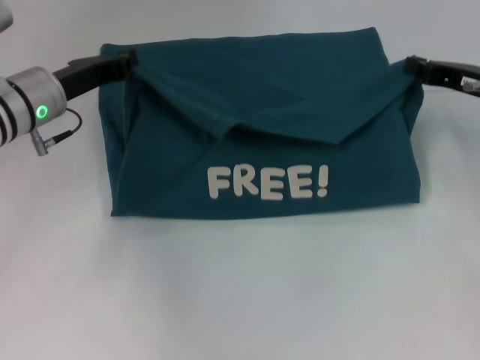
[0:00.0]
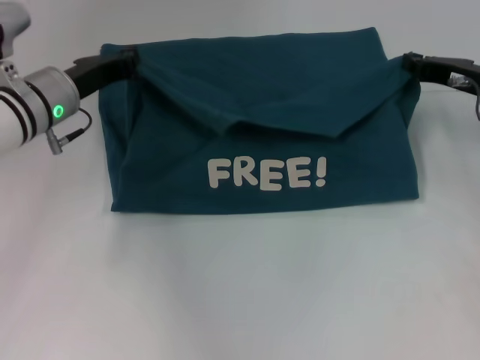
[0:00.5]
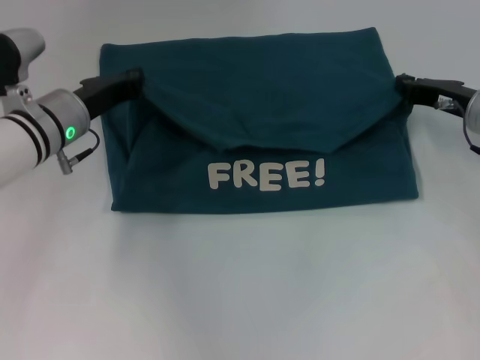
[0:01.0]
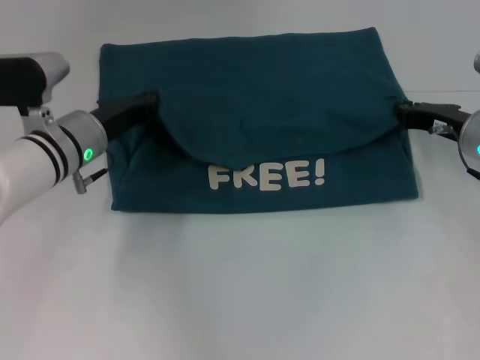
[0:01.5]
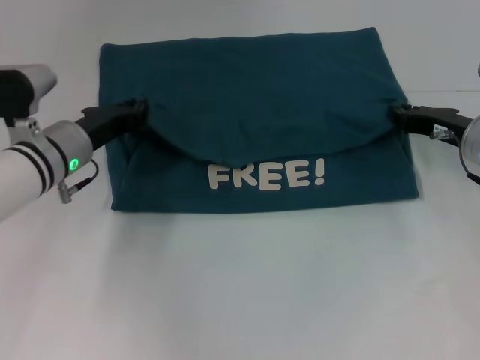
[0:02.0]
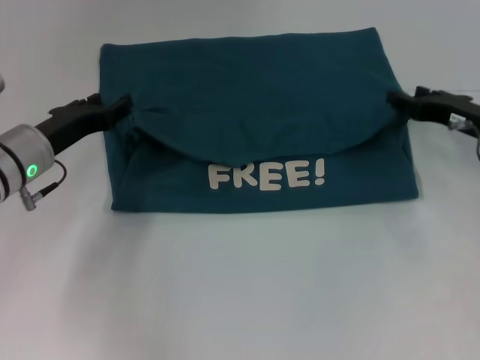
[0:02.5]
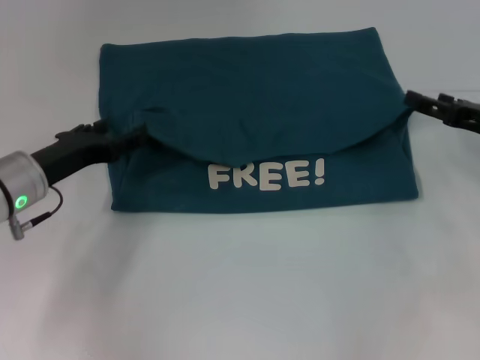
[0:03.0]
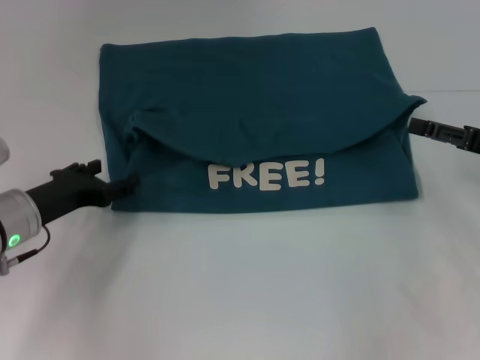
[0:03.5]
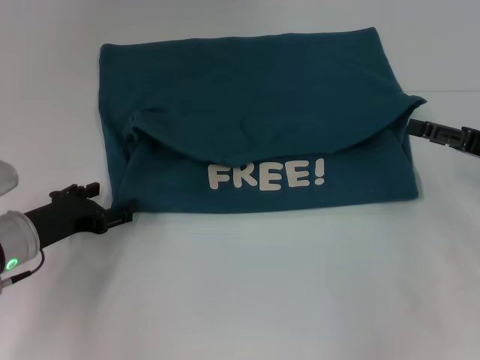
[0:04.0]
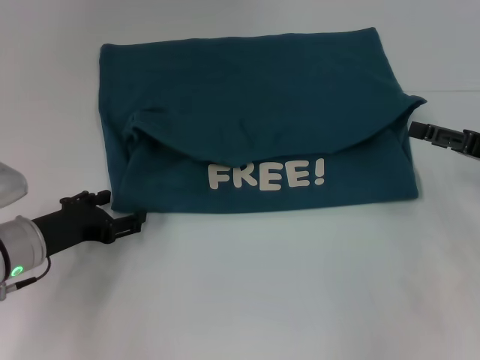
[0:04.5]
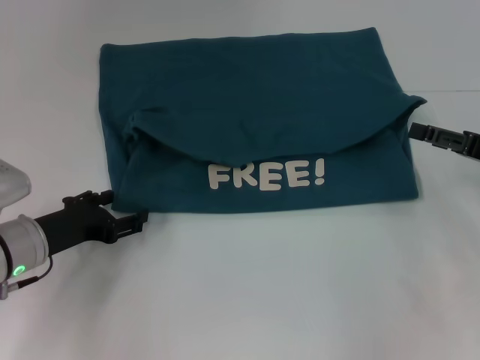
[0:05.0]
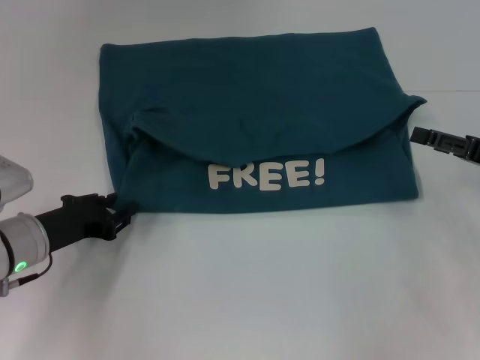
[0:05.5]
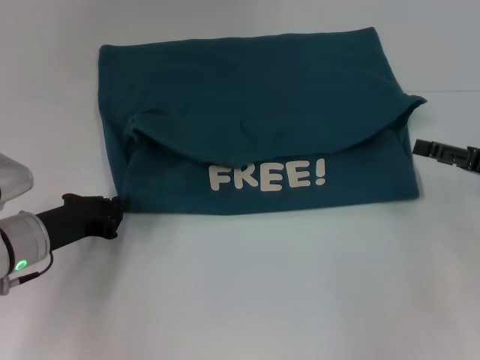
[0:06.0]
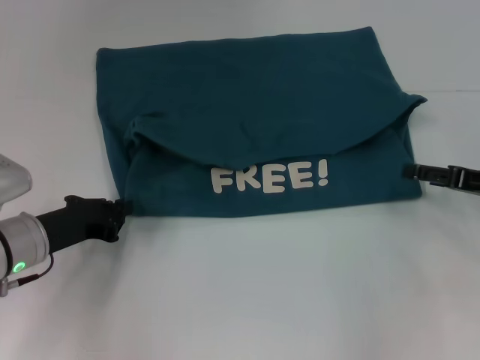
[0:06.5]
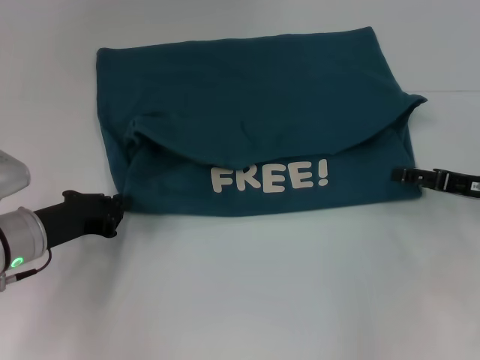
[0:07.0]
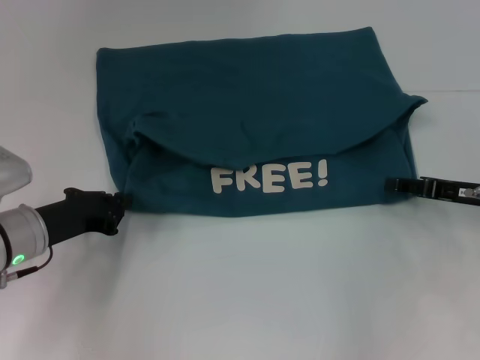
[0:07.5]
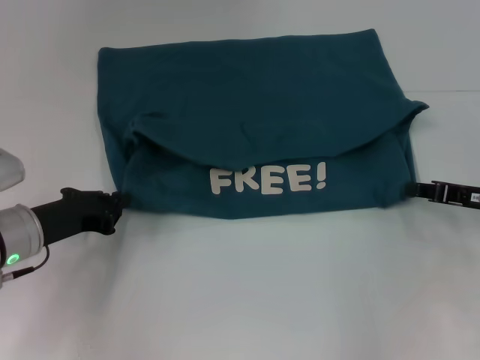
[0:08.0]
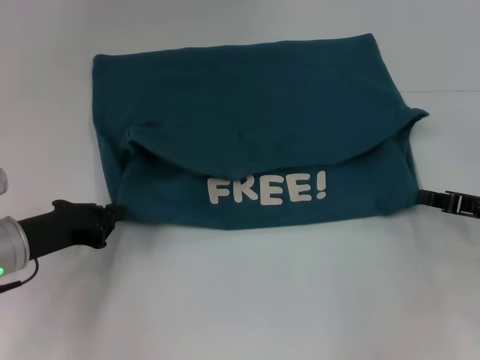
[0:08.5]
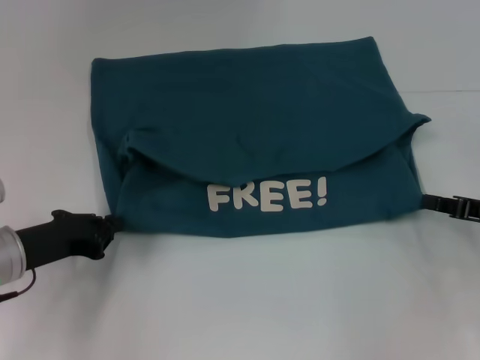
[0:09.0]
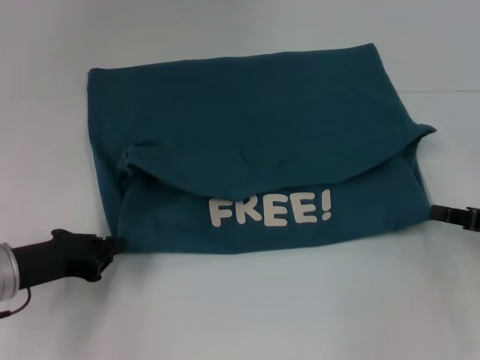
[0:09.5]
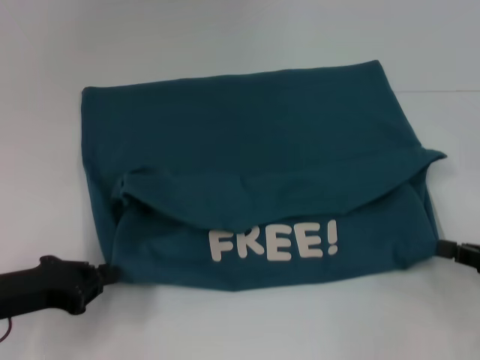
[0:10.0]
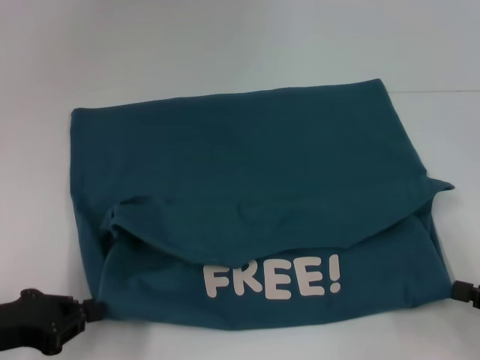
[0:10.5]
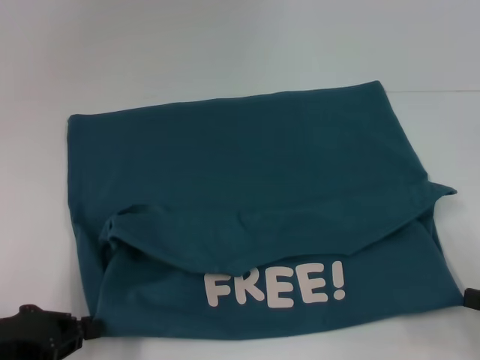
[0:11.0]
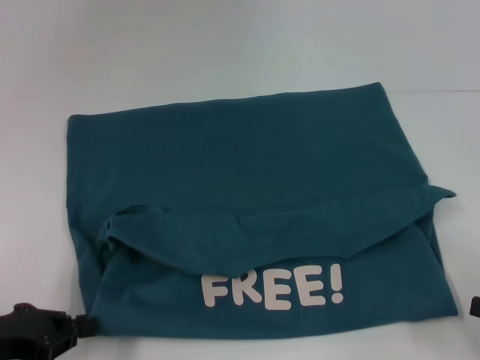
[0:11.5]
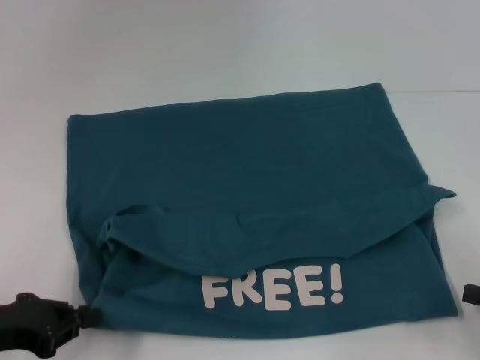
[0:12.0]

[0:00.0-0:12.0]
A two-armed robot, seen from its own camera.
Step, 0.0 to 2.5 s: Fold the clothes to the left.
Step, 0.0 to 2.5 s: Fold the clothes to the right.
Step, 3.0 to 11.0 s: Pull the clothes with your left hand.
Step, 3.0 to 11.0 s: Pull the clothes with your right hand.
0.0 to 2.0 s: Both grippers travel together downward, about 5 cm.
2.0 to 4.0 s: The right gripper shifts some 10 cm backward and to the right, and opens its fingers. The left gripper moves backward and to the left, roughly 10 cm, and opens its fingers.
4.0 to 6.0 s: The left gripper closes its fingers.
6.0 to 8.0 s: The right gripper closes its fingers.
8.0 to 10.0 s: Both grippers travel together backward, approximately 5 cm.
10.0 to 12.0 s: The right gripper shifts about 5 cm backward.

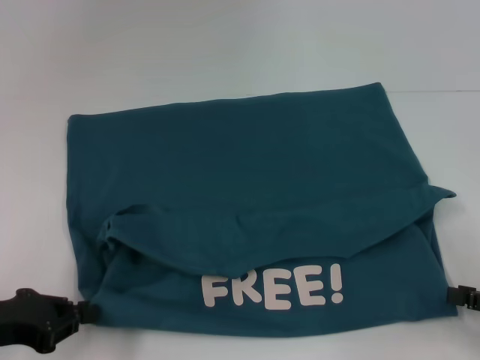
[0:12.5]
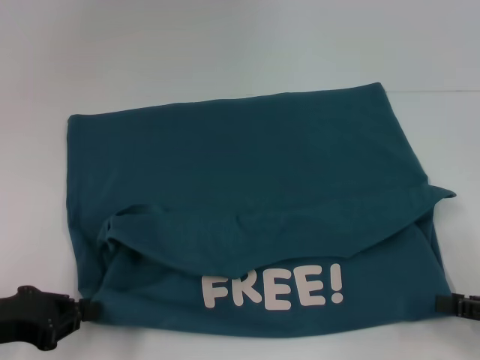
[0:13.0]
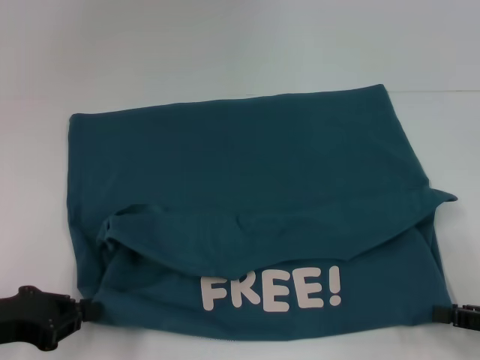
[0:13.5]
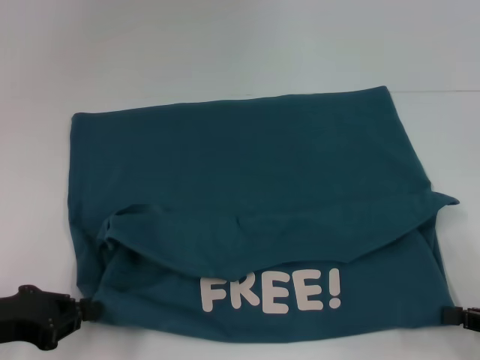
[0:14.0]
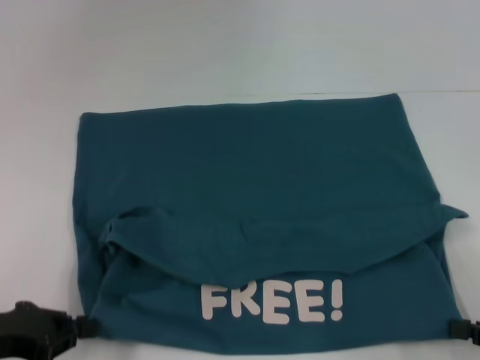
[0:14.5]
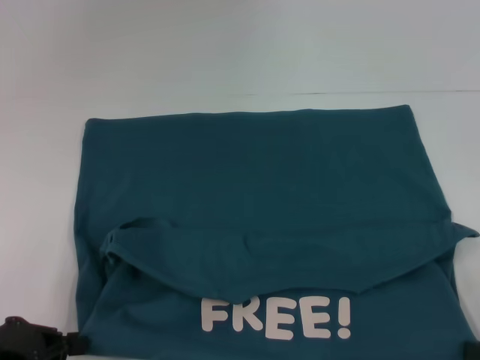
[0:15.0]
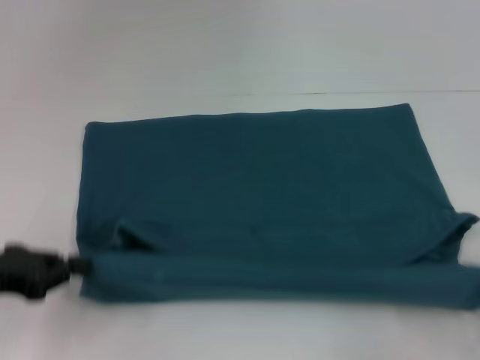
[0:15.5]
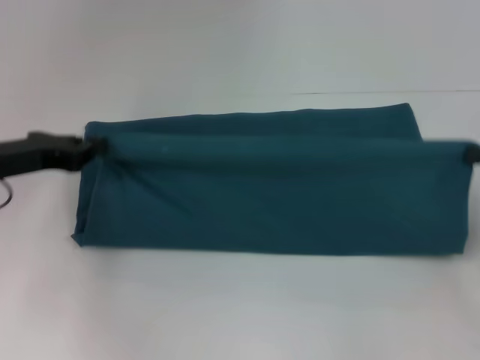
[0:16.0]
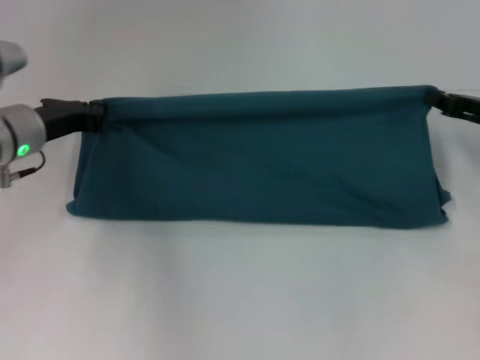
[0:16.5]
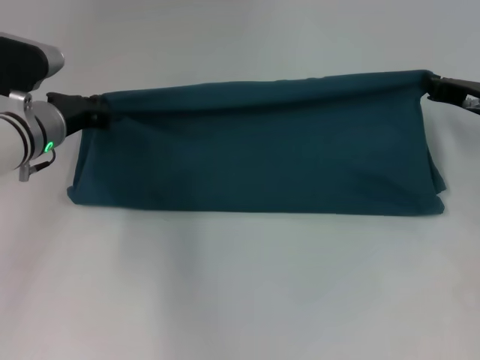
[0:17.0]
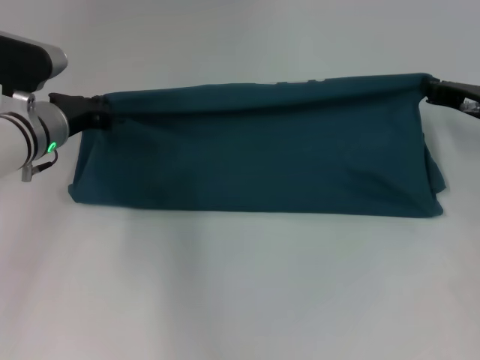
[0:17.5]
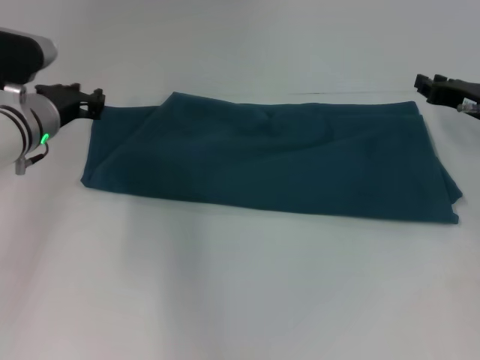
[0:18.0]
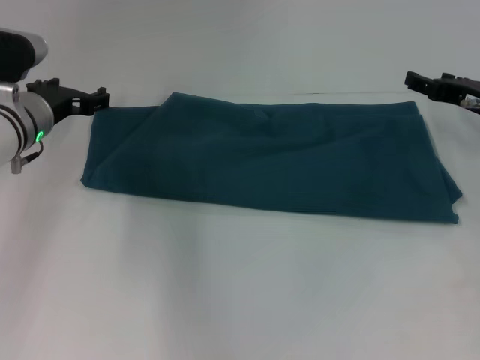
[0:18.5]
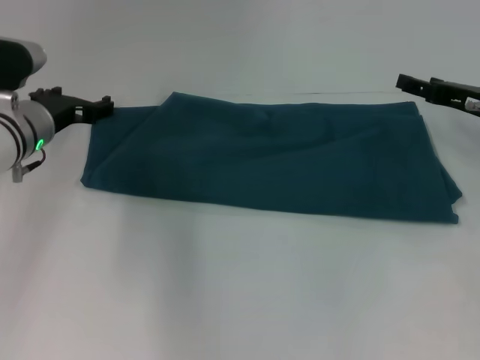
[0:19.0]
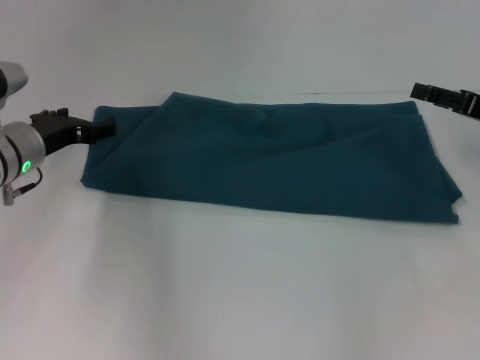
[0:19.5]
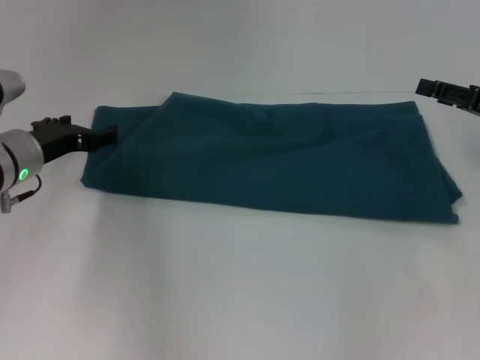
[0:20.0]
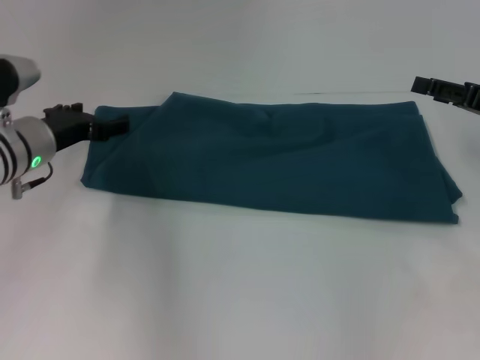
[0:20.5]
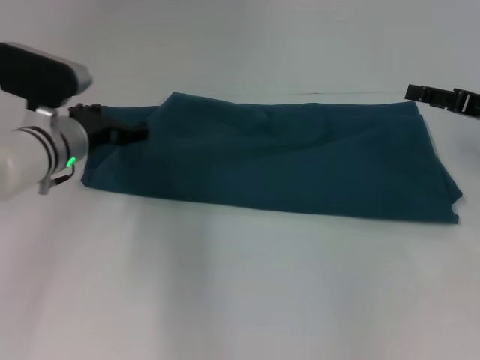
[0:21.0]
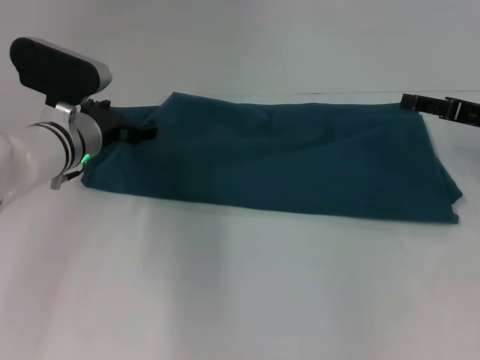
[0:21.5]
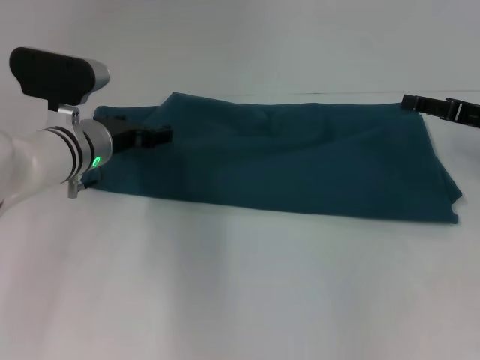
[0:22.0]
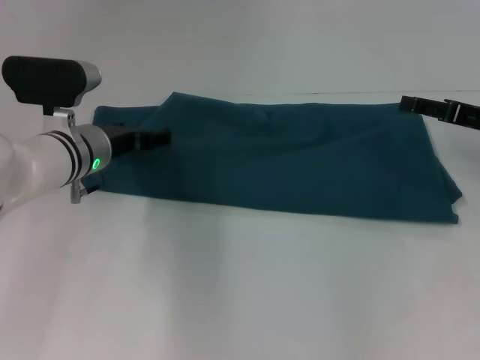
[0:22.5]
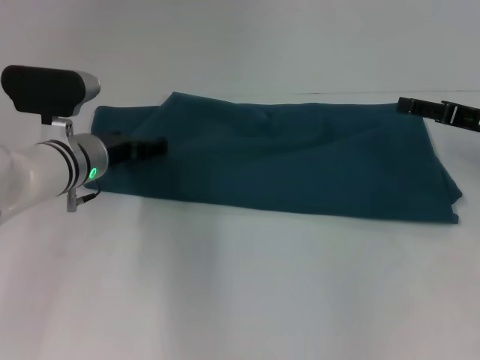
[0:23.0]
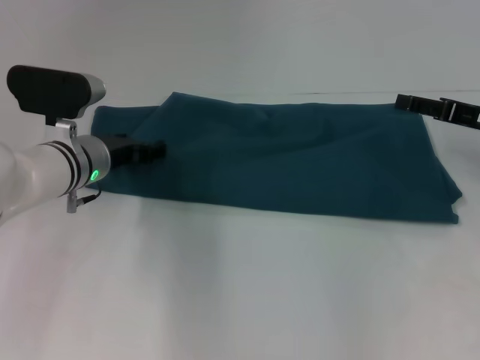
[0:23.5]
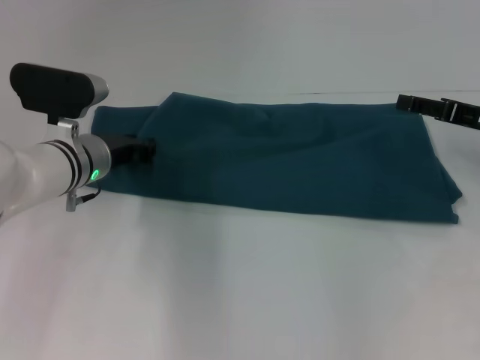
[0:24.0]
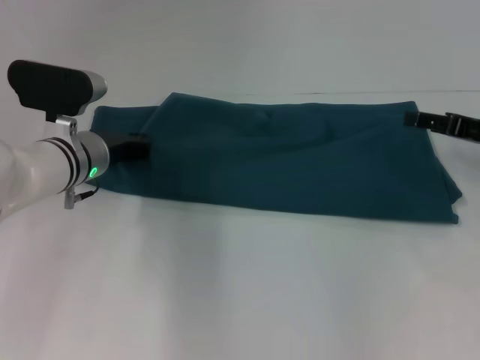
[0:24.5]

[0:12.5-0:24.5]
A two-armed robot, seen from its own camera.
Step, 12.5 to 18.0 s: Fold the clothes to the right.
12.5 to 14.5 s: There are only small adjustments of the grippers.
14.5 to 16.5 s: The grippers both shift forward by some 20 cm.
16.5 to 18.5 s: The right gripper opens; the left gripper opens its fingers.
20.5 to 22.5 s: The left gripper is displaced to the right by about 5 cm.
22.5 to 24.5 s: The left gripper closes.

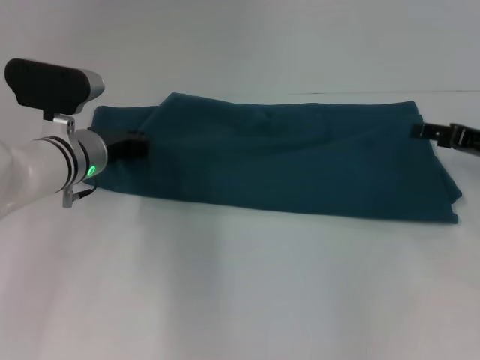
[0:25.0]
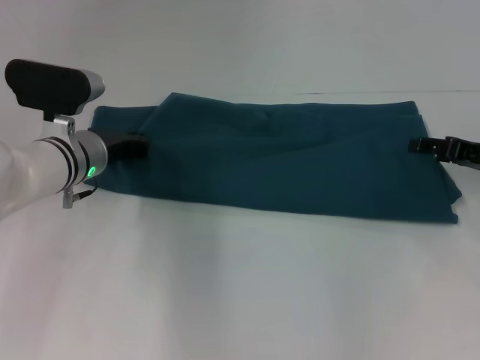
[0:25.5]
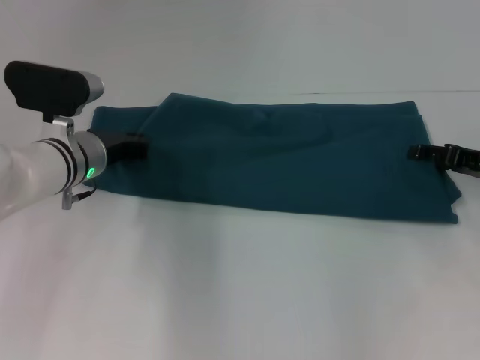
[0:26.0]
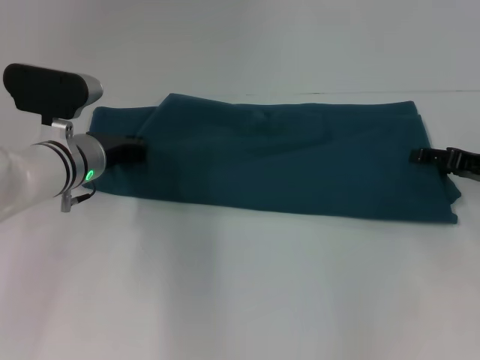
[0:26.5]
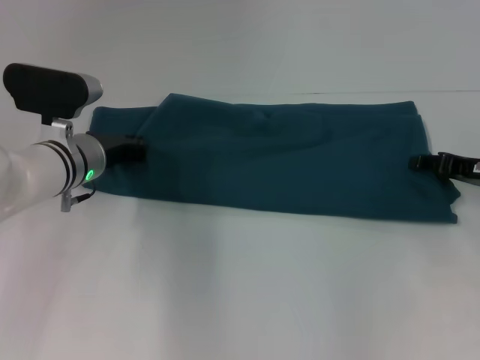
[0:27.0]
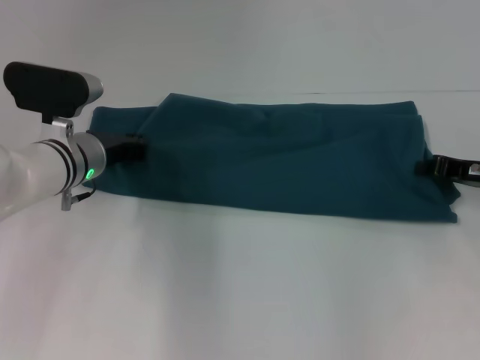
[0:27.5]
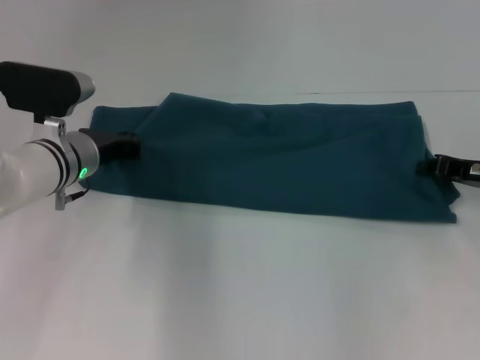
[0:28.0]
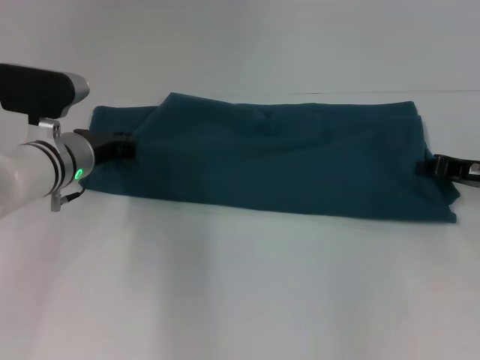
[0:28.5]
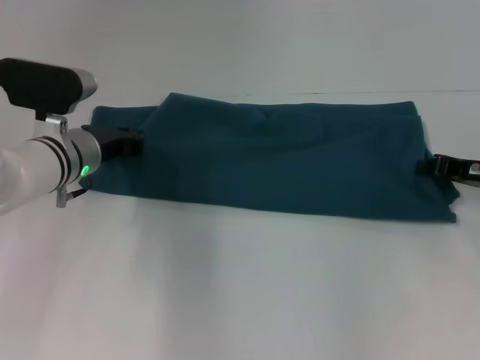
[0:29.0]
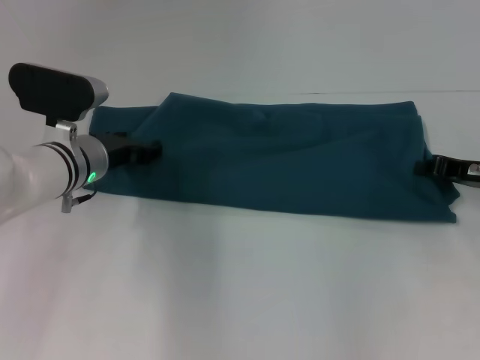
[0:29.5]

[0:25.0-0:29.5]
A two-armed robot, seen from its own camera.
25.0 to 27.0 s: The grippers stay close to where they were, moving slightly.
27.0 to 29.5 s: The left gripper opens up.
